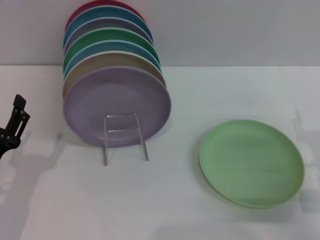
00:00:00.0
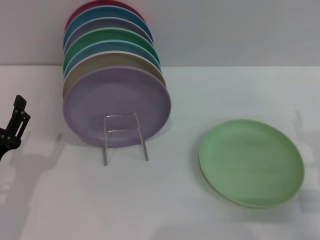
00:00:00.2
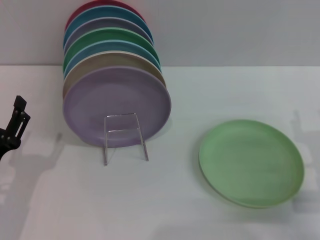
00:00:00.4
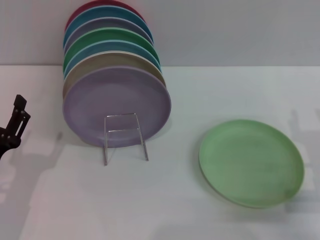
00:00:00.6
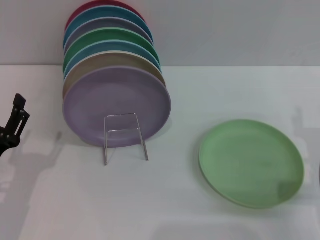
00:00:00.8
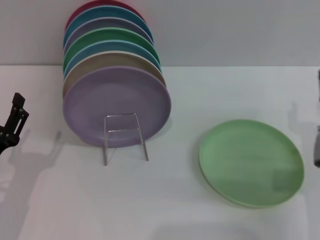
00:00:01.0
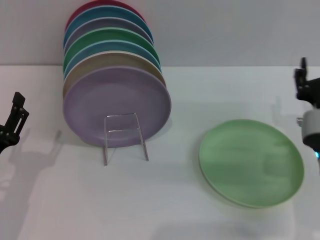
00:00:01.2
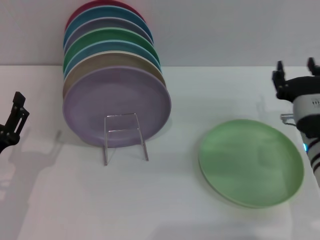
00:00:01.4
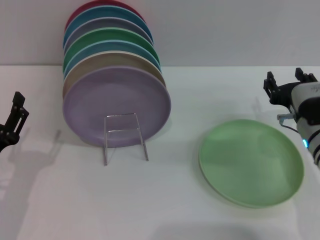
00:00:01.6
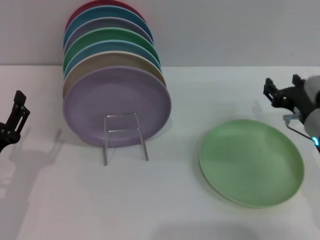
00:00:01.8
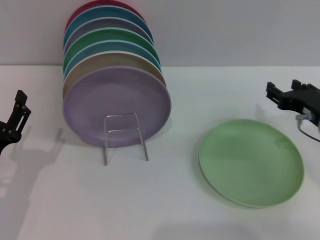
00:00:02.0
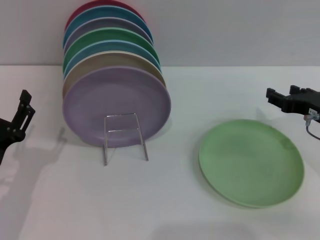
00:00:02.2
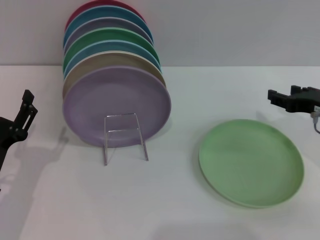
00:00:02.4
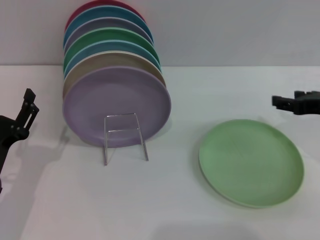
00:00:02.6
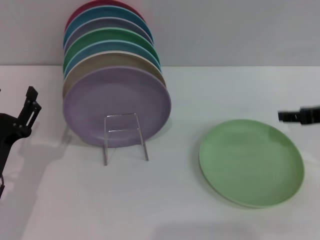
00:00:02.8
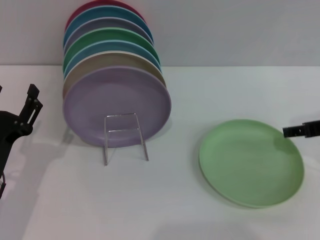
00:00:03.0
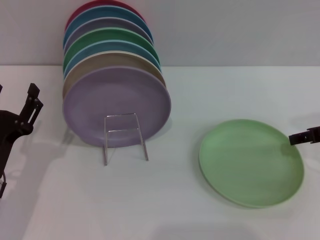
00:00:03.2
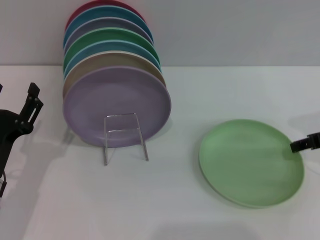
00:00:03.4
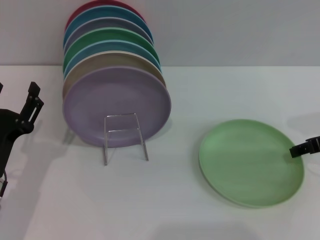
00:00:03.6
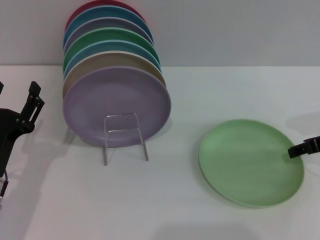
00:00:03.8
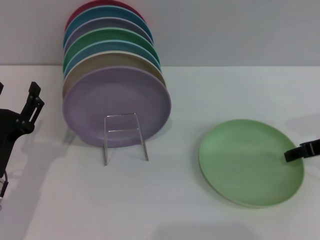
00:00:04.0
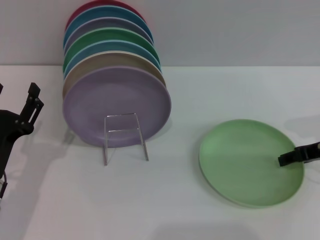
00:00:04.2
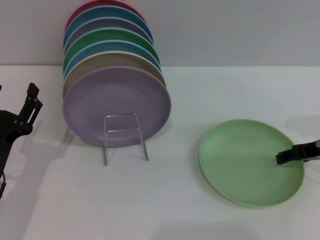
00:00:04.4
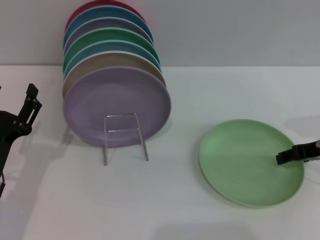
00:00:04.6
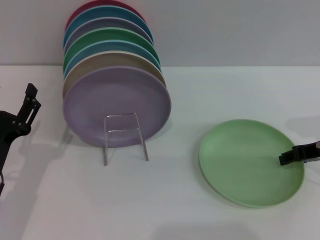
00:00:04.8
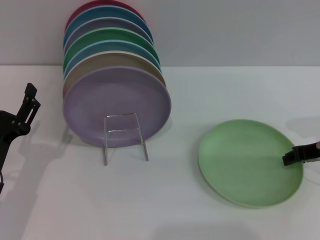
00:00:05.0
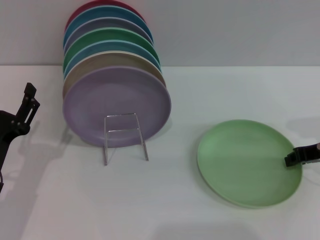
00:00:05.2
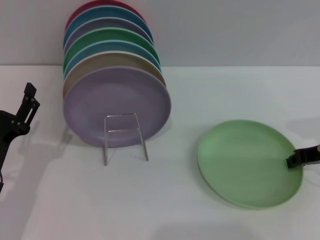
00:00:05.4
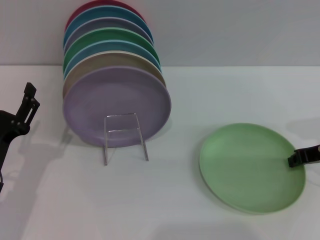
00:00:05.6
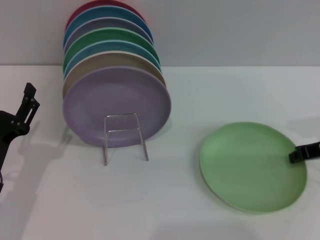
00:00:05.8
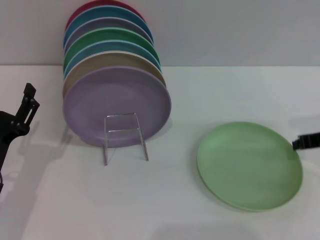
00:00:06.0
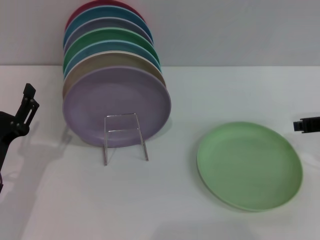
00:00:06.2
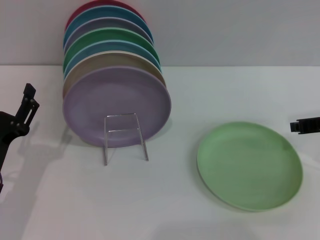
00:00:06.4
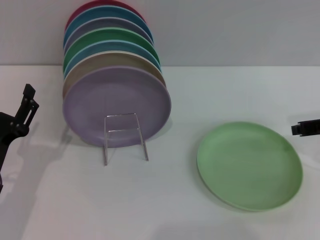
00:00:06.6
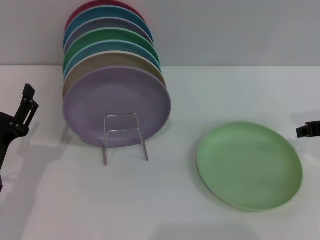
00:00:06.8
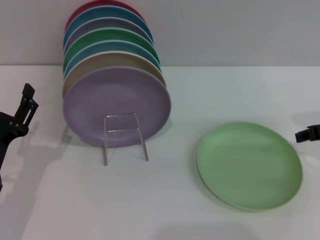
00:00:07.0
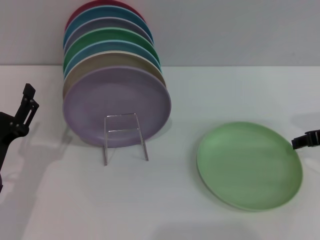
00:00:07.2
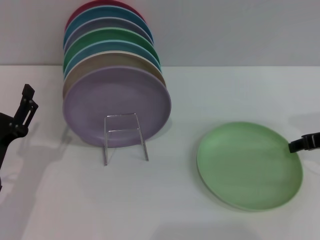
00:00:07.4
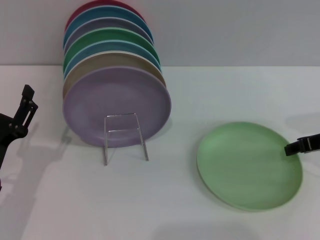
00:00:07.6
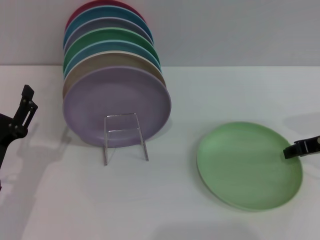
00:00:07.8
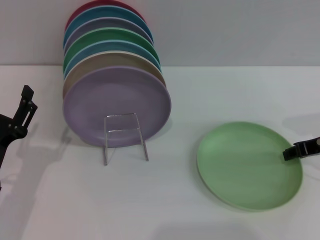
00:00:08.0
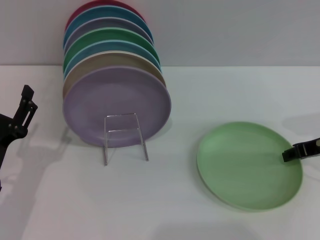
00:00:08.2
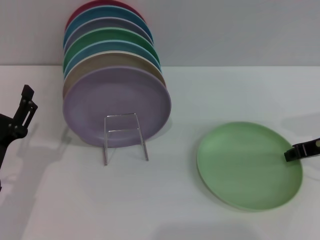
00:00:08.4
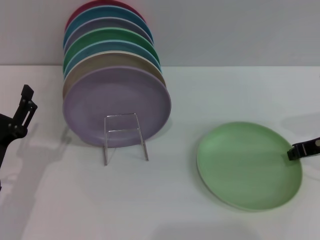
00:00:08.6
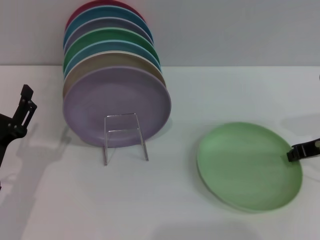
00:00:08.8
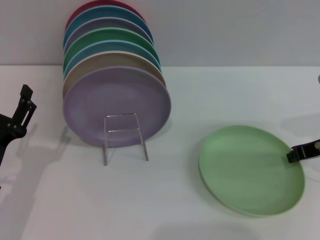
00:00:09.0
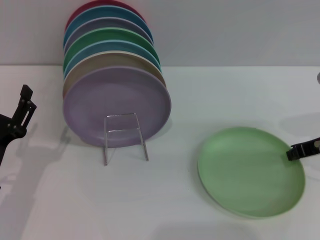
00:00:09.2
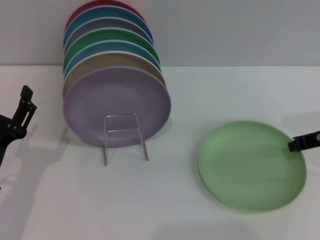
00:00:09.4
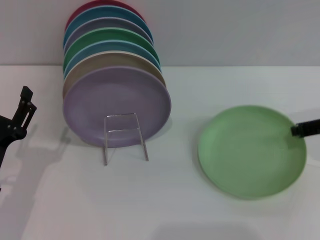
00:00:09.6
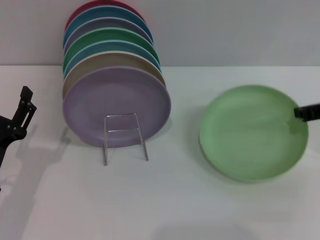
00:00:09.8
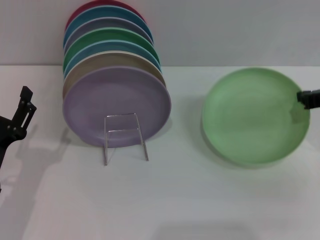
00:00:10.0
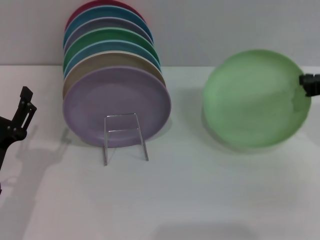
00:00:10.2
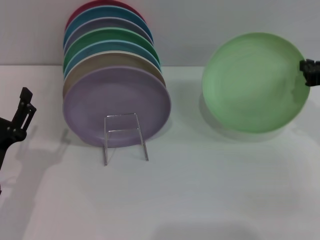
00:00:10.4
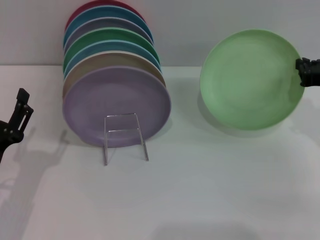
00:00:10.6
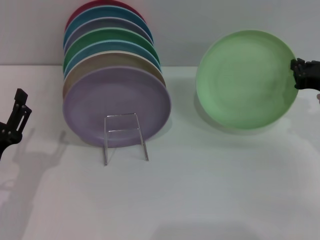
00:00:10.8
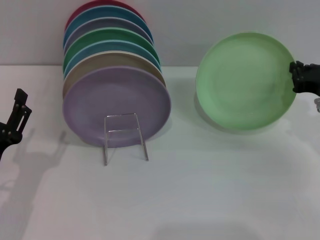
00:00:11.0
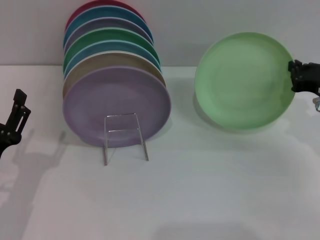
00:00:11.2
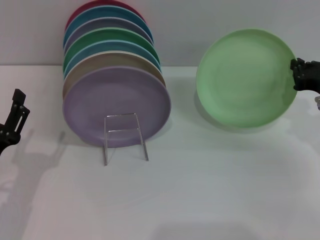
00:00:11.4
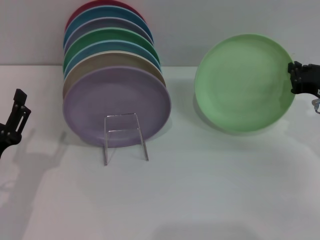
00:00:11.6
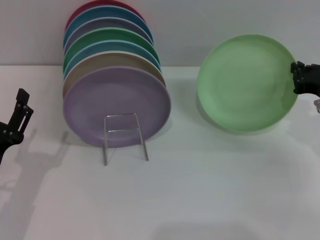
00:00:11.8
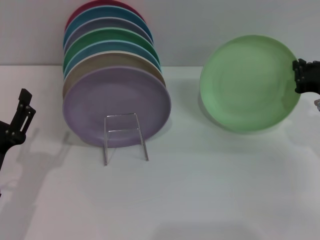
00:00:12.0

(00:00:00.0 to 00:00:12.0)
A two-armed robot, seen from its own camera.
Task of the whole recording: Grip the plate with one hand, pass it to the other, then set it on the shelf.
Step, 00:00:00.0 - 00:00:09.6: Pick up the plate with the right gripper.
00:00:00.0 - 00:00:01.6: The right gripper heads forward and to the left, covering about 10 cm.
00:00:01.6 - 00:00:03.0: The right gripper goes approximately 10 cm upward and to the right.
00:00:03.0 - 00:00:04.4: The grippers make only small movements.
00:00:04.4 - 00:00:06.0: The right gripper closes its fingers.
00:00:07.6 - 00:00:09.0: The right gripper closes.
00:00:10.4 - 00:00:12.0: The grippers make only small movements.

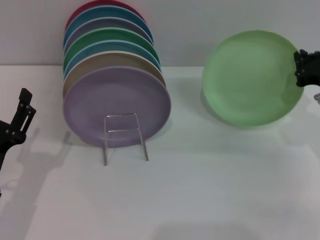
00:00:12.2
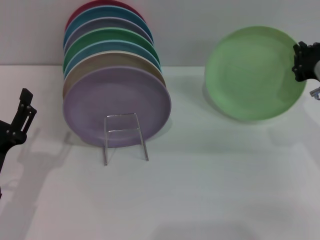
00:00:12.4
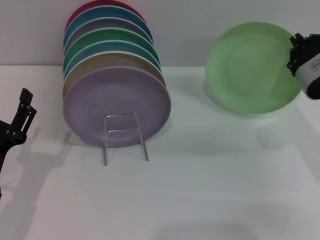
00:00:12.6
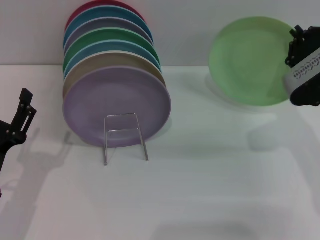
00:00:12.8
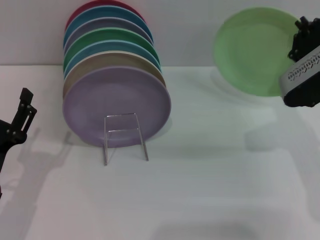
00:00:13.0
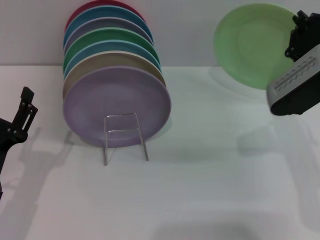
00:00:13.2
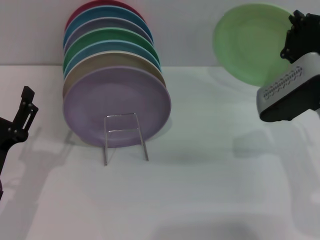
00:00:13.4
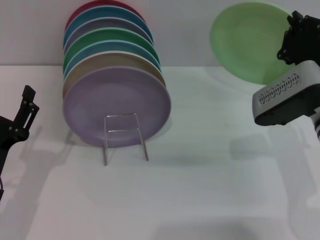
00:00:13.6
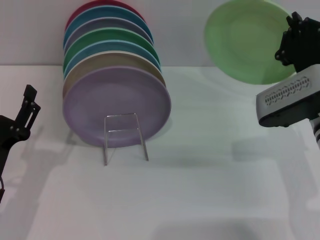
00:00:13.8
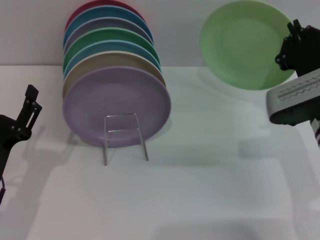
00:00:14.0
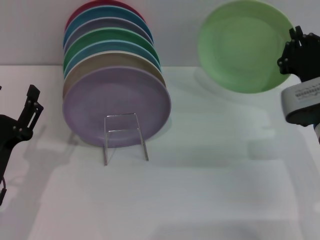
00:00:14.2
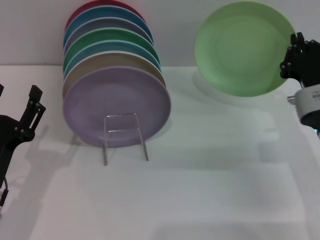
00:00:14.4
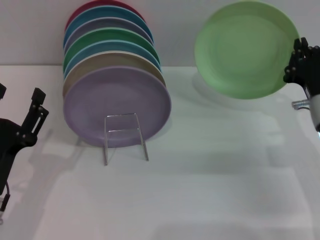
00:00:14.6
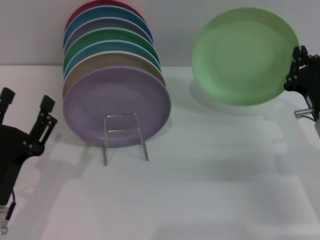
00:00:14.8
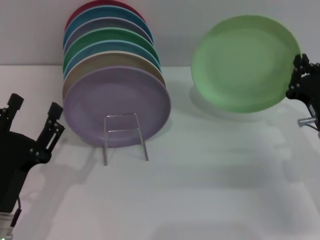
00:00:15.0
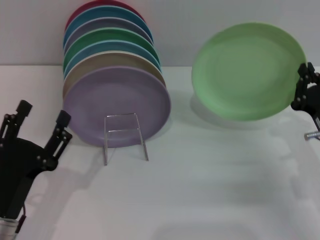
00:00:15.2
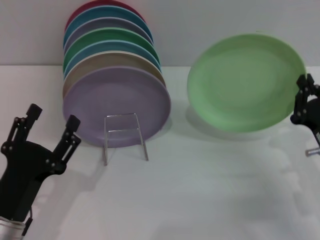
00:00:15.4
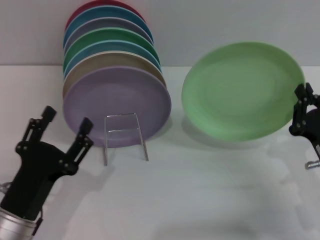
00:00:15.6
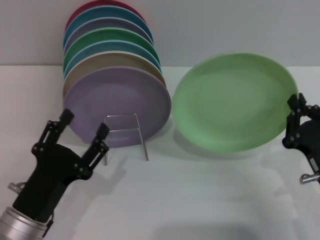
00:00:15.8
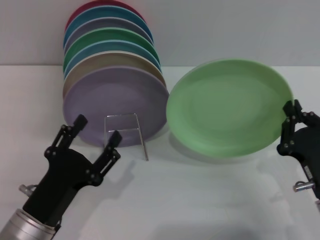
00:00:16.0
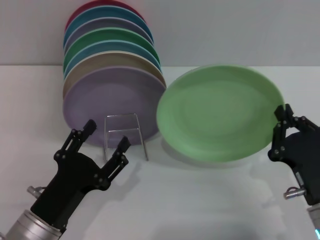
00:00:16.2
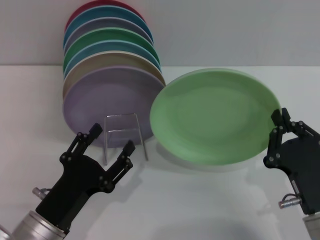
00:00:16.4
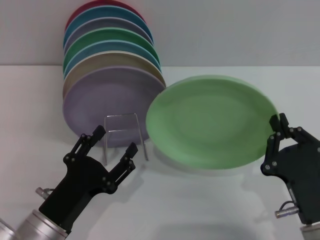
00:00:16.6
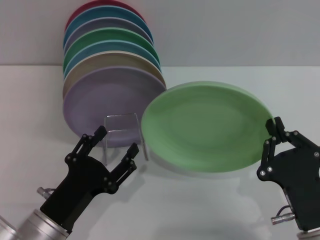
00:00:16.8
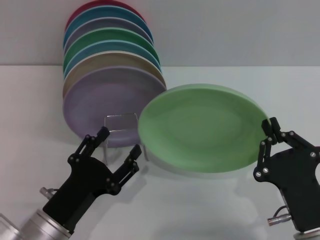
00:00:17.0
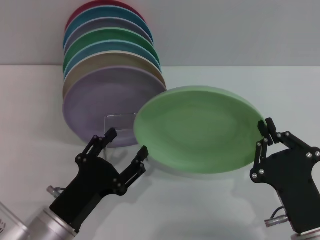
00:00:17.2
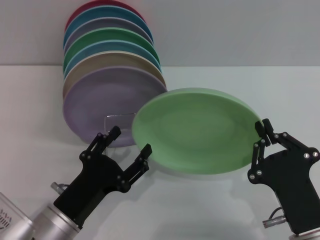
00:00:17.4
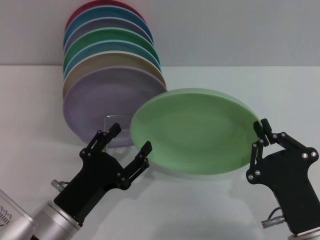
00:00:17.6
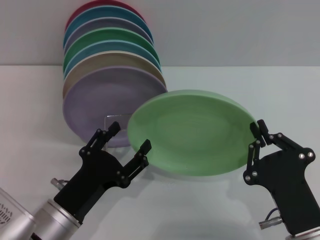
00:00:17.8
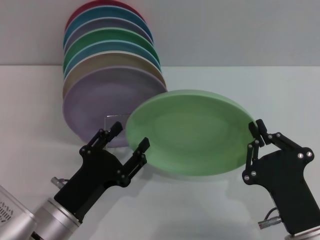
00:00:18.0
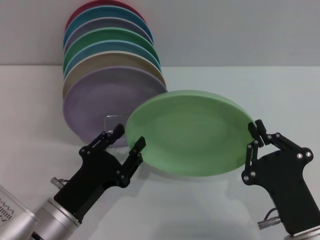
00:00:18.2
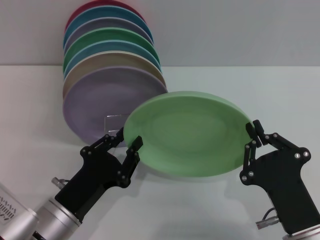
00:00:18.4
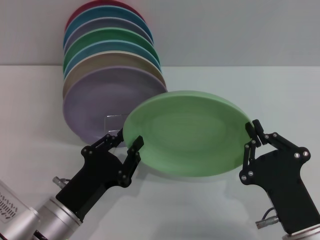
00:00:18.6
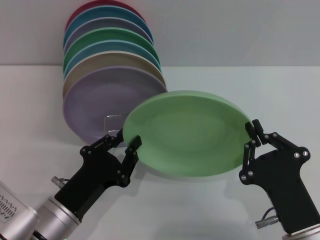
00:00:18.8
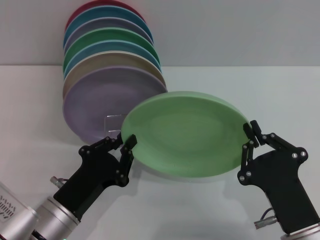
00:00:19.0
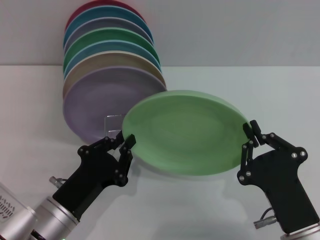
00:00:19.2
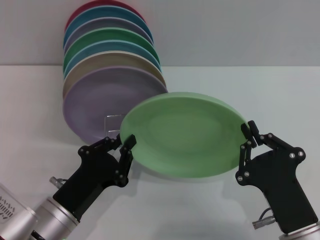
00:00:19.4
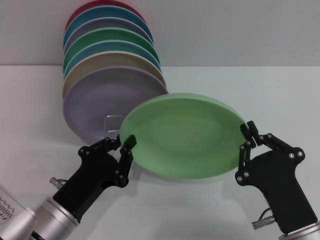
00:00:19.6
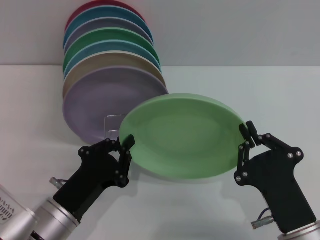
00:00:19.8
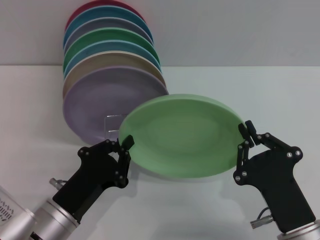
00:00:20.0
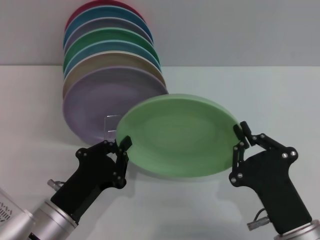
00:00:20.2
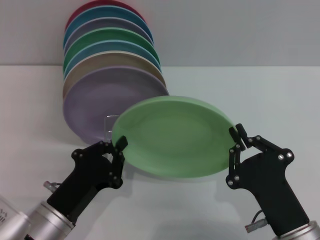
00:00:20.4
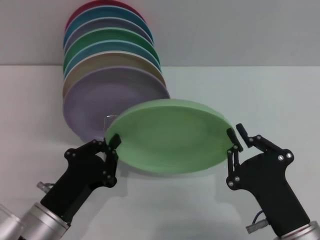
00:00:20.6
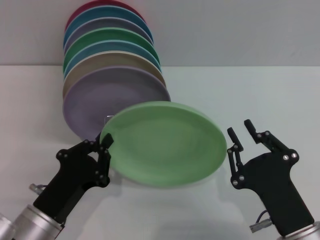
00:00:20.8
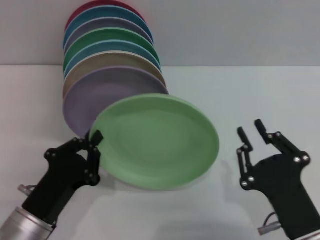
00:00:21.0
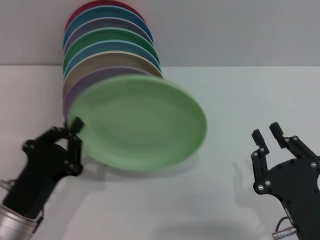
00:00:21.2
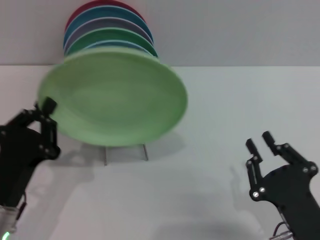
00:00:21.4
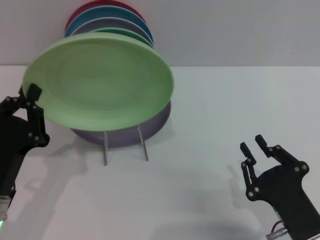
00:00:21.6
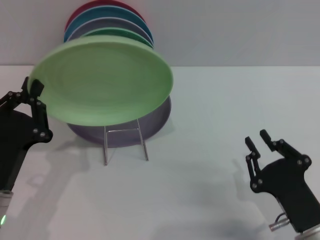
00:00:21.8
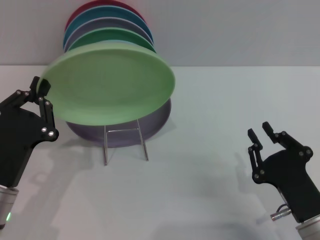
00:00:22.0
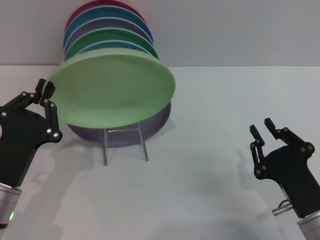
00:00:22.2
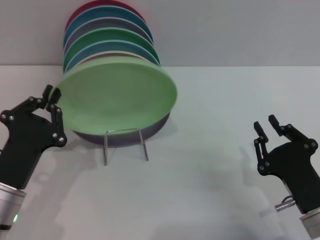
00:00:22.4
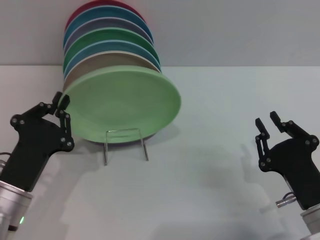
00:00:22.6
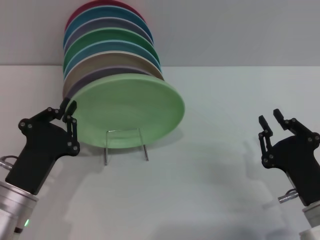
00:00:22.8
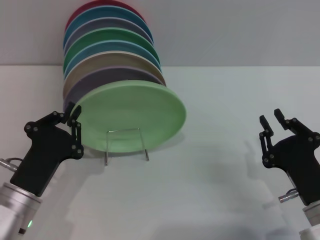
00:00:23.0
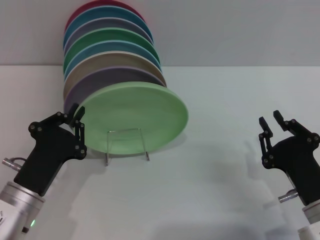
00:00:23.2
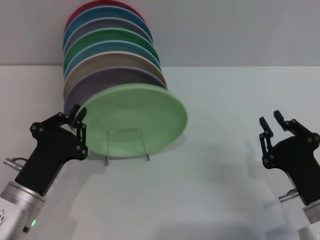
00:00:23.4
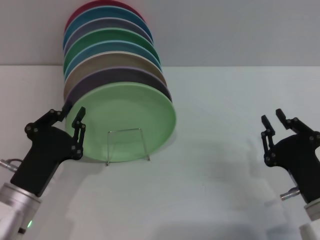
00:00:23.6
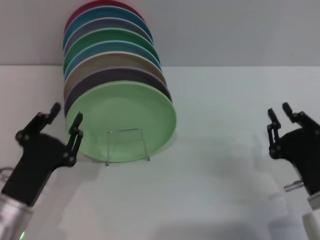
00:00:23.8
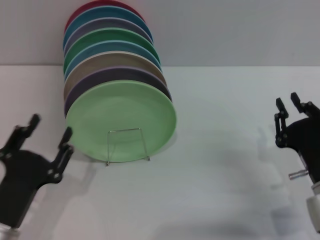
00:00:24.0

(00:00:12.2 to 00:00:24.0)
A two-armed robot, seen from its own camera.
Task of the whole recording: Grip the plate with one hand, pass it to the other, then set it on the shelf.
Step, 00:00:12.2 - 00:00:21.0: Pass the plate from the right gripper to the left gripper.
Step, 00:00:21.2 - 00:00:23.8: Place the plate on the shelf with the left gripper.
00:00:12.2 - 00:00:13.6: The right gripper heads to the left, covering about 10 cm.
00:00:13.6 - 00:00:15.2: The right gripper is displaced downward, backward and to the right by approximately 10 cm.
00:00:15.2 - 00:00:16.6: The right gripper goes roughly 15 cm backward and to the left.
00:00:16.6 - 00:00:18.2: The grippers make only small movements.
00:00:18.2 - 00:00:19.6: The left gripper closes.
00:00:19.6 - 00:00:21.0: The grippers move only a little.
00:00:21.0 - 00:00:22.6: The right gripper shifts by some 5 cm.
00:00:22.6 - 00:00:24.0: The left gripper ends up approximately 5 cm from where it was.
